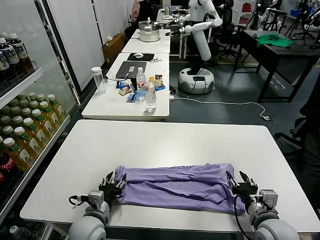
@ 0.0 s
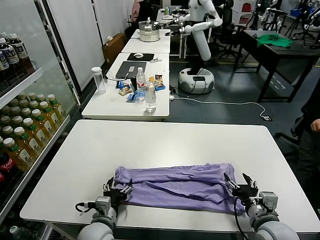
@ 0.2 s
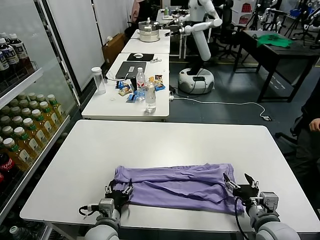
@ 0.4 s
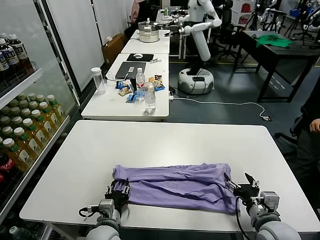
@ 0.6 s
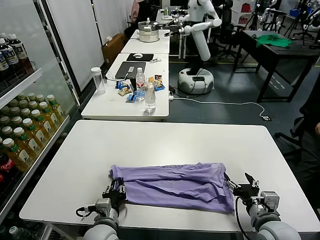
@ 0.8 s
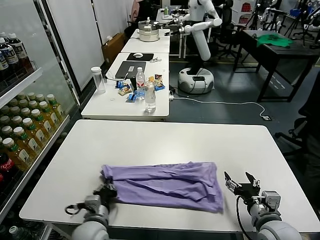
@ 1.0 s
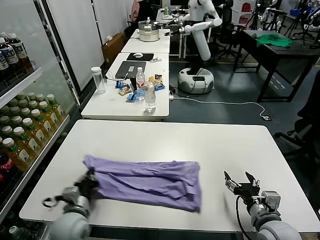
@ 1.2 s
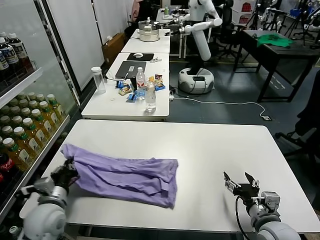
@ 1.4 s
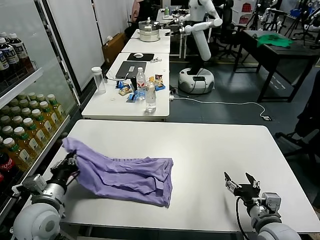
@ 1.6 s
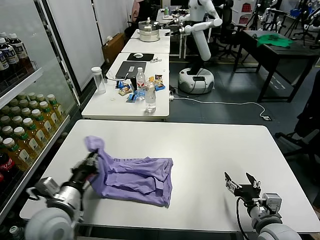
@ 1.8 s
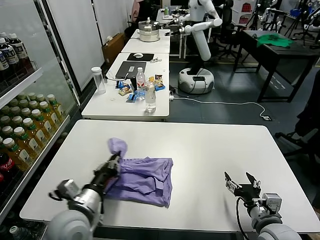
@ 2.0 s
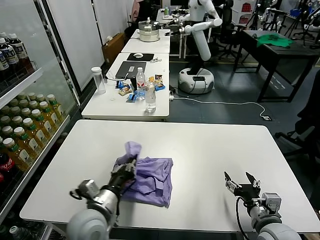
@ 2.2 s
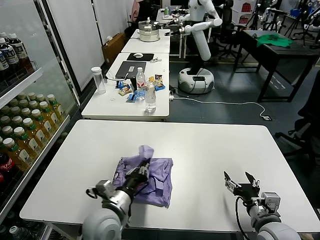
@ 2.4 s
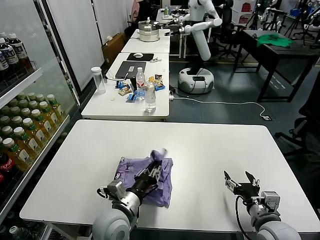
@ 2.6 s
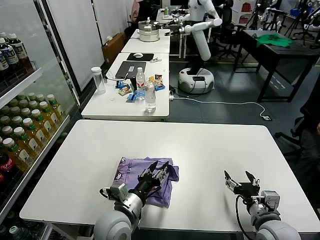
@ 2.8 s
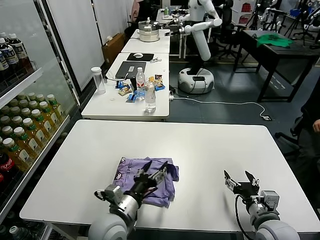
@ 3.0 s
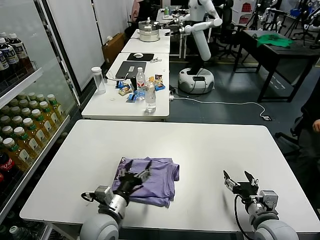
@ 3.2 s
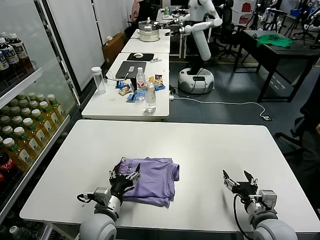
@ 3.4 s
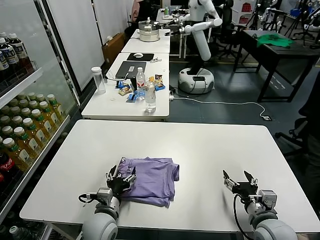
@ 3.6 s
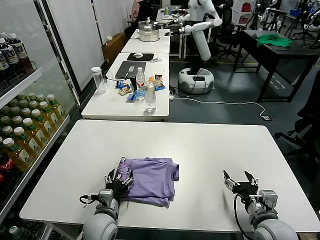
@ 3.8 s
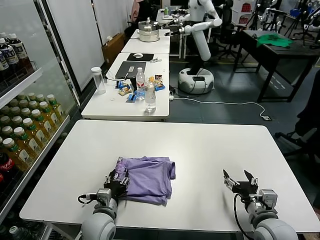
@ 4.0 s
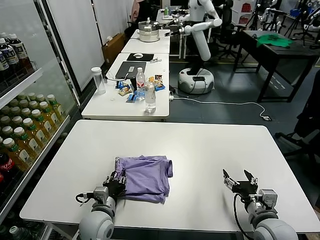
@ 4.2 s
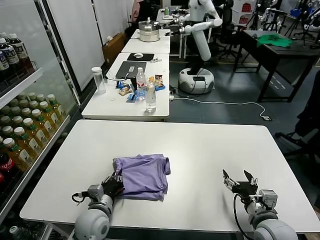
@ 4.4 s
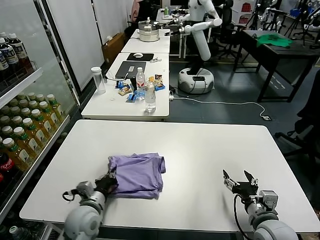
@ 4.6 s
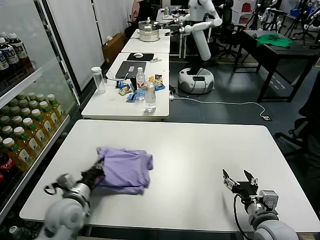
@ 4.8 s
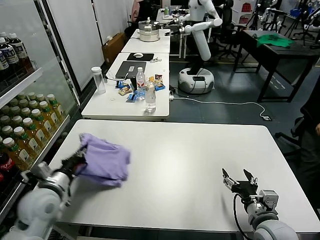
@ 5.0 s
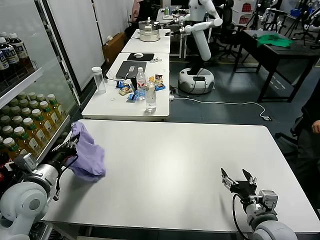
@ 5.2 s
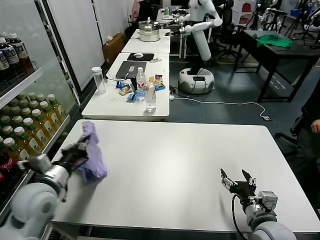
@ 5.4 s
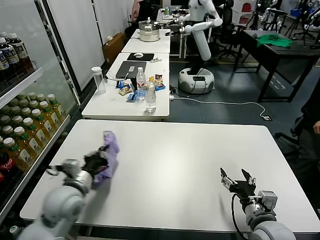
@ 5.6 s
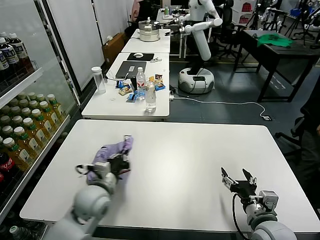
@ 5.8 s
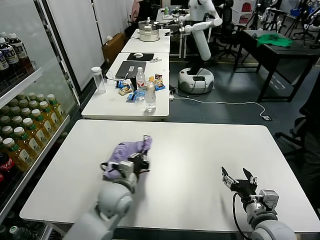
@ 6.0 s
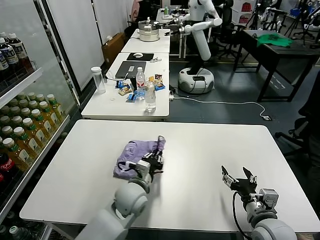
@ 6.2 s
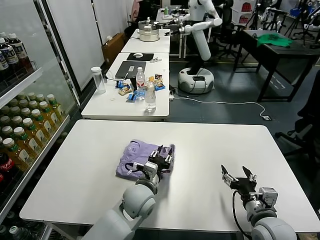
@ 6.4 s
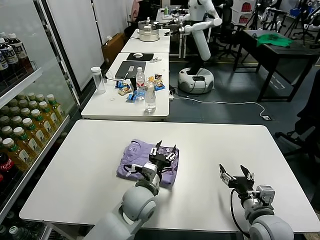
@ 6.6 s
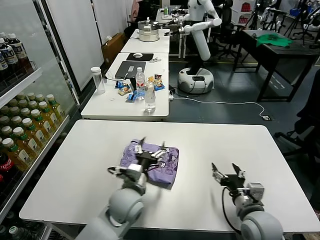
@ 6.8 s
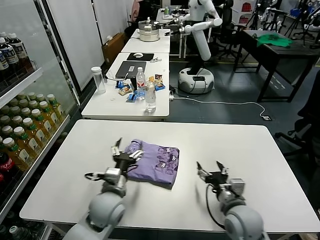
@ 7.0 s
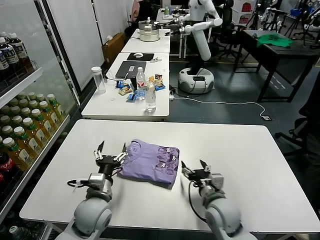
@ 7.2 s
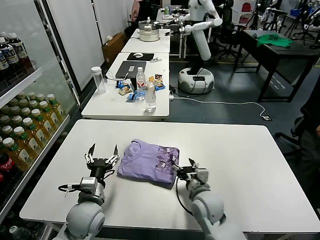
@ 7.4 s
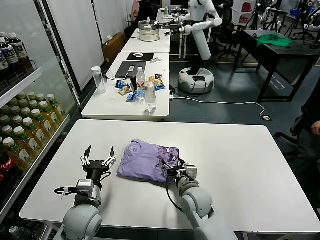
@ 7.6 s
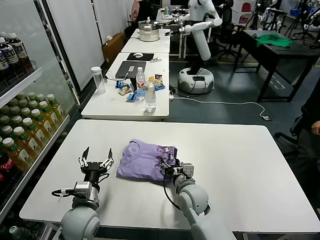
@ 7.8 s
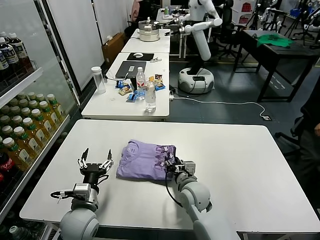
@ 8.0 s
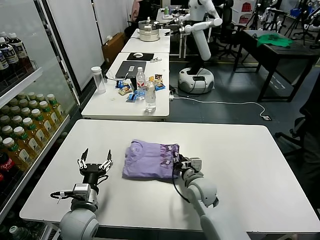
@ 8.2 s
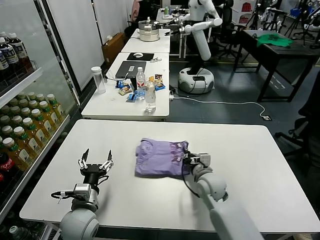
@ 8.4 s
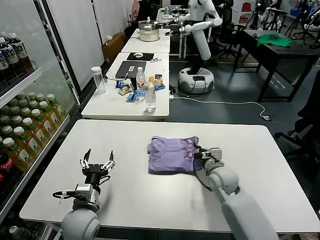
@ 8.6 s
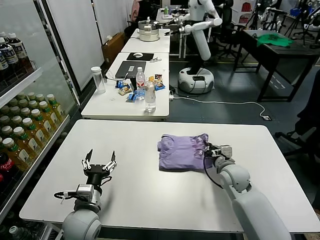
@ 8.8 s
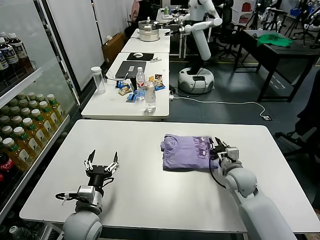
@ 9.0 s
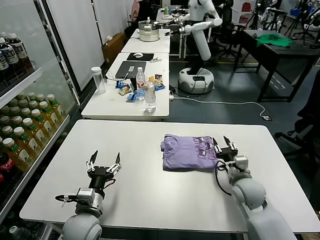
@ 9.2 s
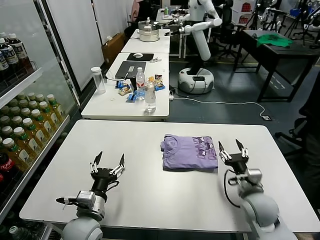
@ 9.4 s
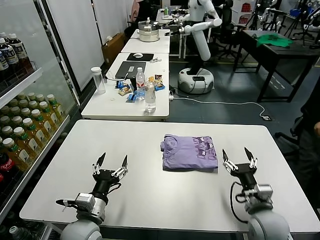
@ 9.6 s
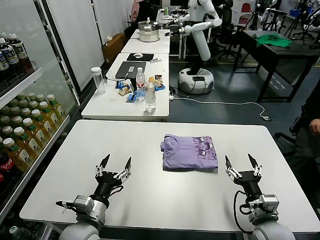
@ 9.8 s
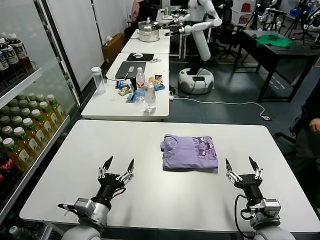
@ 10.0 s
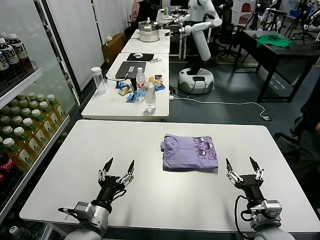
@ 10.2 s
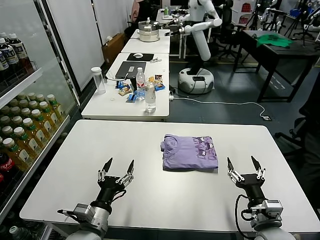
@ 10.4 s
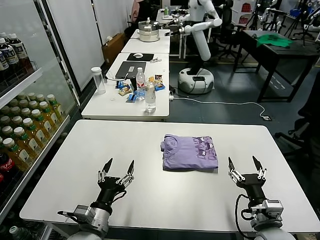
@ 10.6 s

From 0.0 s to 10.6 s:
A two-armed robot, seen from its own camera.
Task of the whole recording: fold and organize the clothes.
Step, from 0.2 s to 0.8 s: use the left gripper to clamp the left edge of the fabric.
Step, from 1.2 s to 3.0 s: use the left gripper to drag the left edge of the fabric to the left and folds it over the right edge.
Step, from 3.4 s to 6.4 s: Flip the folded clothes over with left gripper.
Step, from 6.6 s to 9.0 s: Drag the clothes to the center of the table.
From 0.0 s to 1.6 s: The left gripper goes roughly 15 cm to the left and upward, and closes up.
From 1.6 s to 3.0 s: The left gripper shifts some 20 cm to the right, and opens.
From 3.0 s to 4.6 s: The left gripper heads to the left and downward, covering approximately 10 cm, and closes up.
From 4.6 s to 6.0 s: The left gripper travels to the right and upward by approximately 10 cm.
From 6.0 s to 7.6 s: The right gripper is displaced to the left and forward by about 20 cm; the left gripper goes roughly 10 cm to the left, and opens its fingers.
From 7.6 s to 9.0 s: The right gripper travels to the right and forward by about 15 cm, and closes.
From 9.0 s to 10.6 s: The right gripper is displaced backward by approximately 20 cm, and opens up, while the left gripper travels backward by about 5 cm.

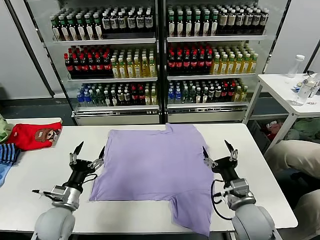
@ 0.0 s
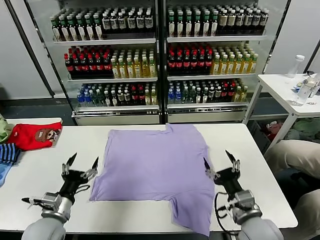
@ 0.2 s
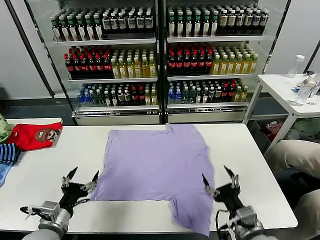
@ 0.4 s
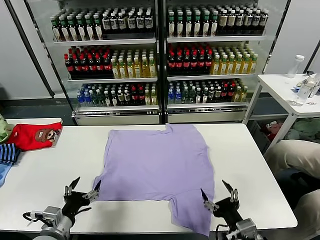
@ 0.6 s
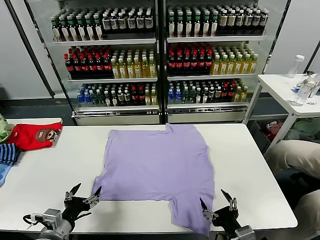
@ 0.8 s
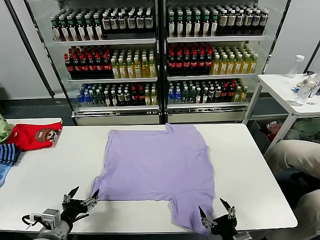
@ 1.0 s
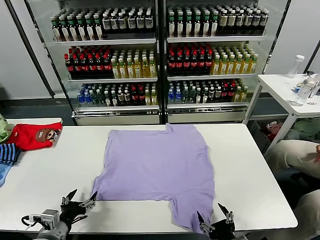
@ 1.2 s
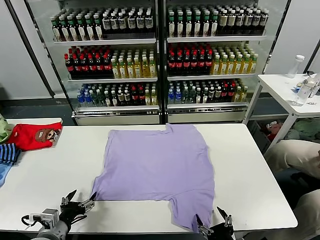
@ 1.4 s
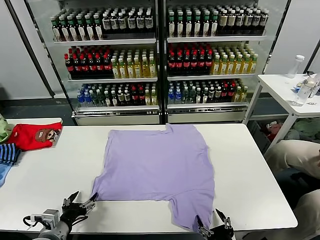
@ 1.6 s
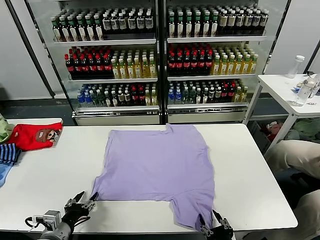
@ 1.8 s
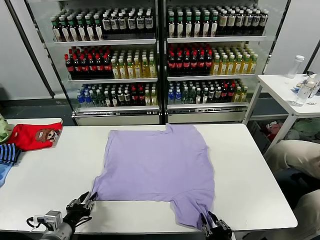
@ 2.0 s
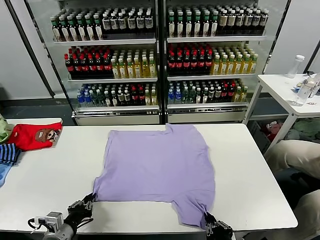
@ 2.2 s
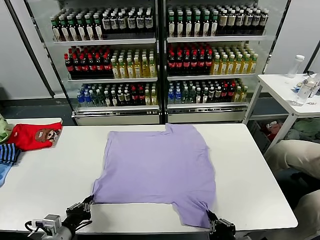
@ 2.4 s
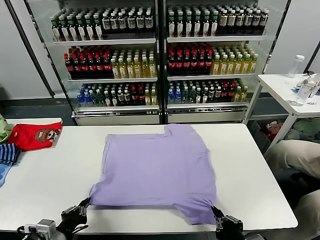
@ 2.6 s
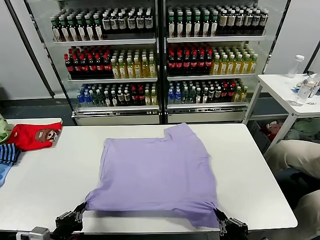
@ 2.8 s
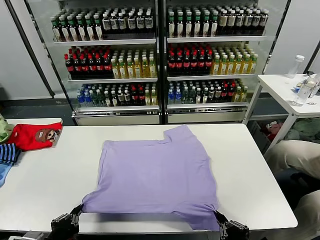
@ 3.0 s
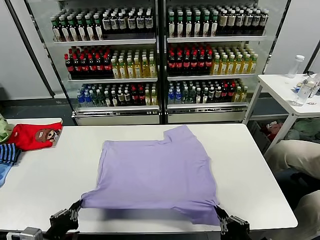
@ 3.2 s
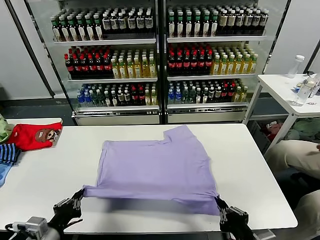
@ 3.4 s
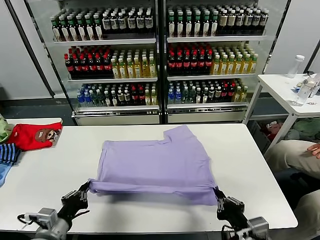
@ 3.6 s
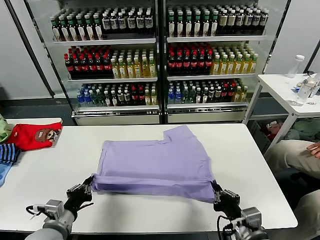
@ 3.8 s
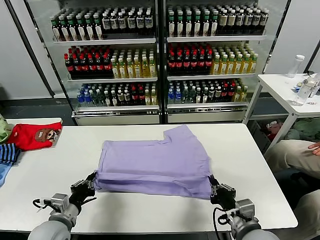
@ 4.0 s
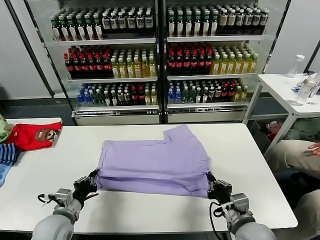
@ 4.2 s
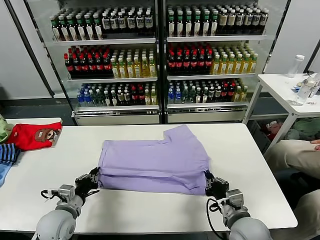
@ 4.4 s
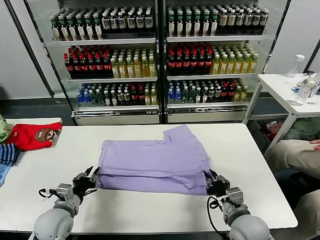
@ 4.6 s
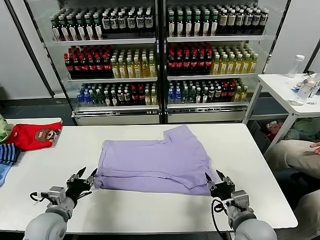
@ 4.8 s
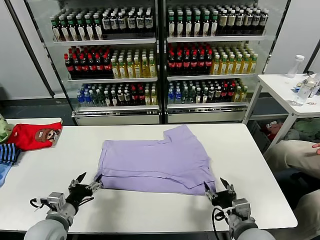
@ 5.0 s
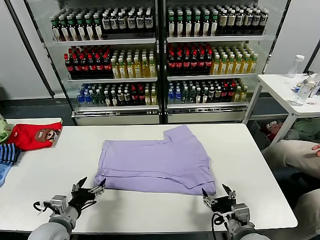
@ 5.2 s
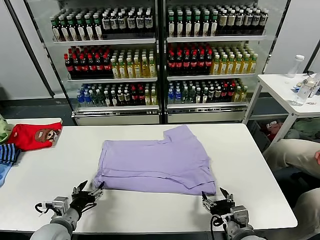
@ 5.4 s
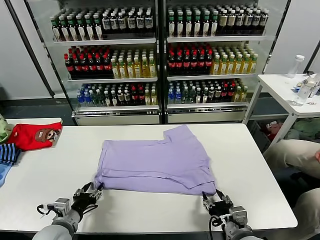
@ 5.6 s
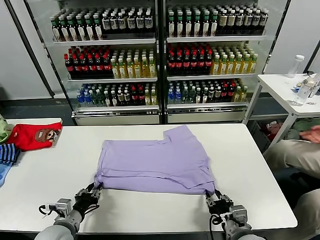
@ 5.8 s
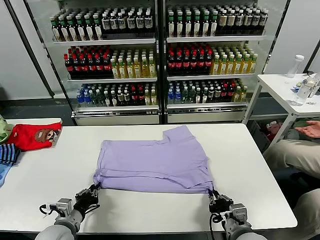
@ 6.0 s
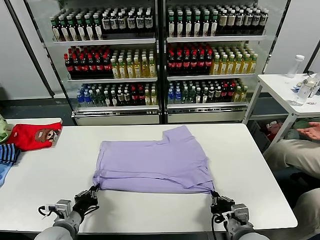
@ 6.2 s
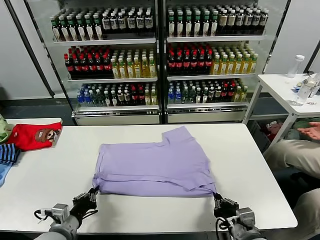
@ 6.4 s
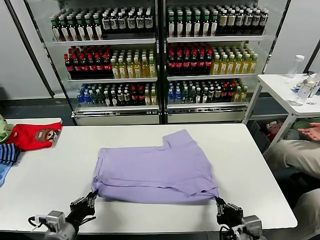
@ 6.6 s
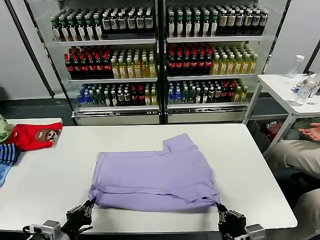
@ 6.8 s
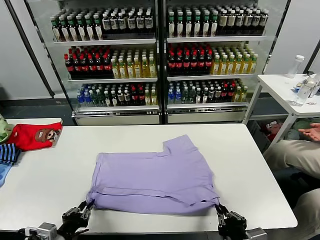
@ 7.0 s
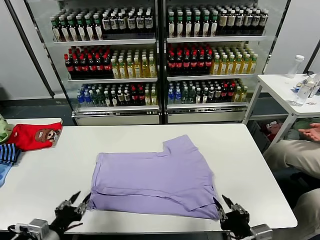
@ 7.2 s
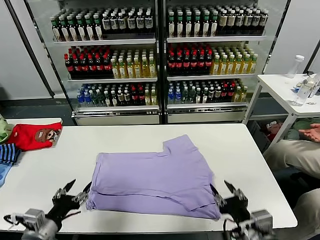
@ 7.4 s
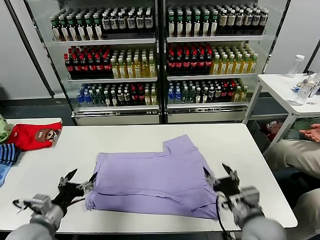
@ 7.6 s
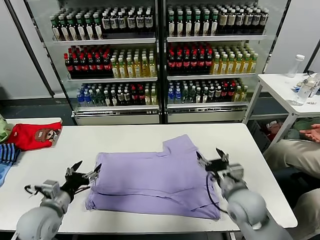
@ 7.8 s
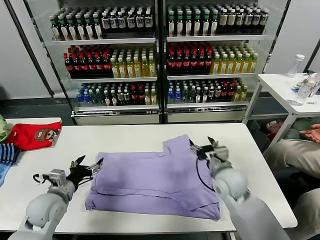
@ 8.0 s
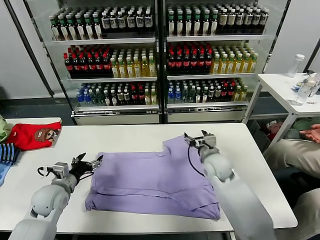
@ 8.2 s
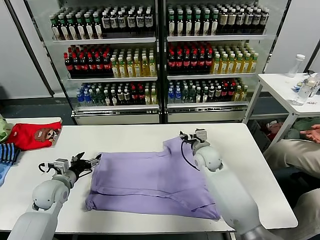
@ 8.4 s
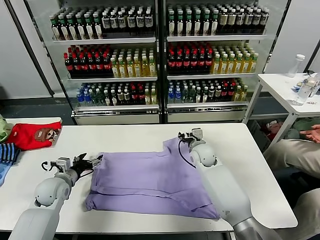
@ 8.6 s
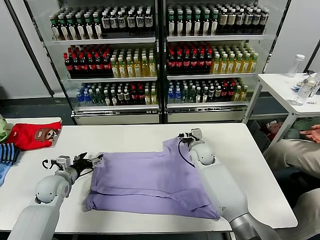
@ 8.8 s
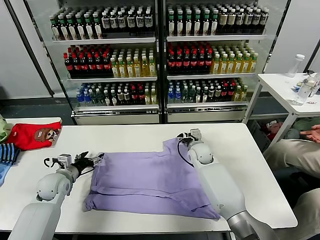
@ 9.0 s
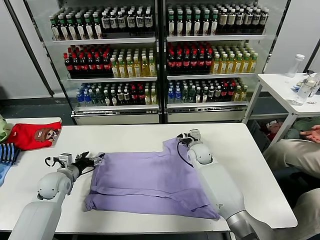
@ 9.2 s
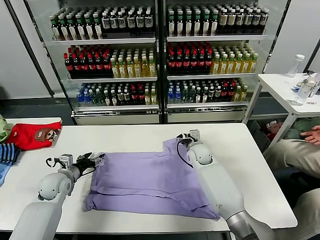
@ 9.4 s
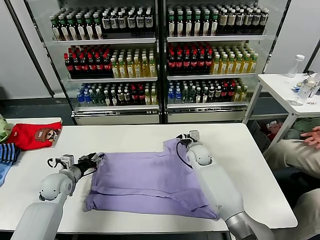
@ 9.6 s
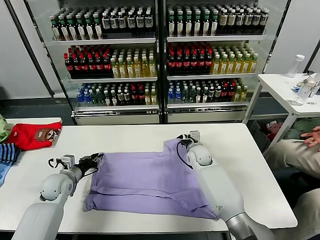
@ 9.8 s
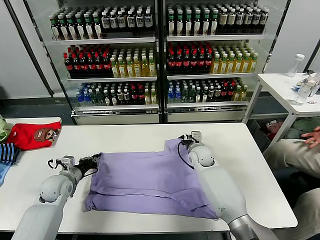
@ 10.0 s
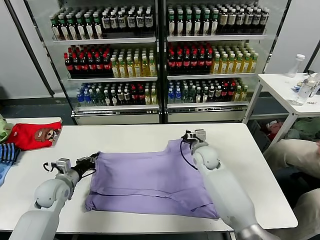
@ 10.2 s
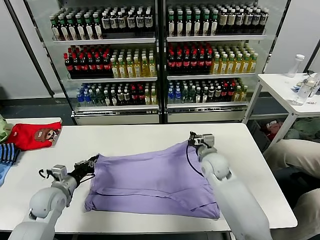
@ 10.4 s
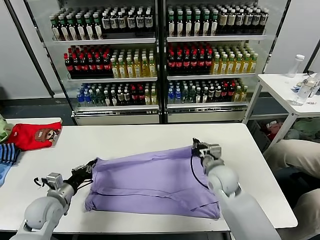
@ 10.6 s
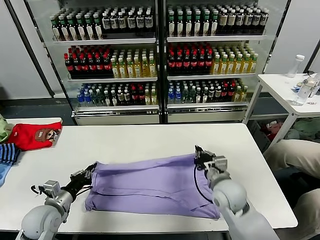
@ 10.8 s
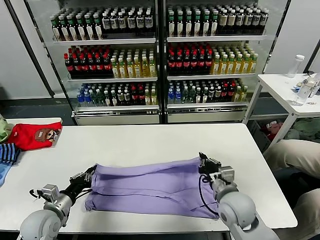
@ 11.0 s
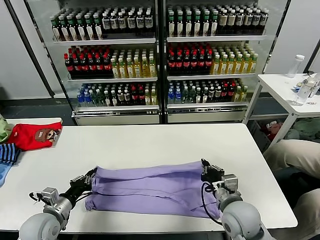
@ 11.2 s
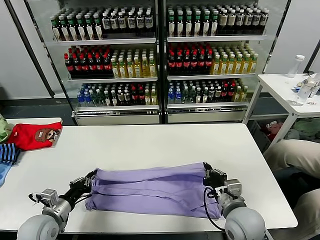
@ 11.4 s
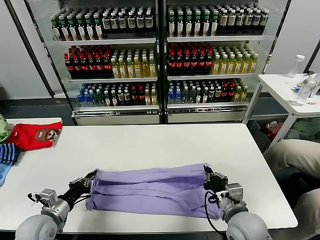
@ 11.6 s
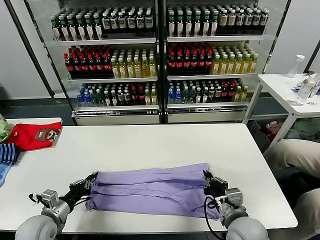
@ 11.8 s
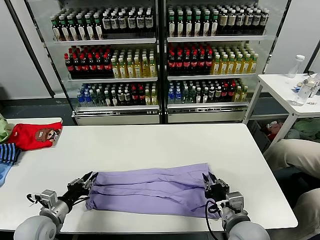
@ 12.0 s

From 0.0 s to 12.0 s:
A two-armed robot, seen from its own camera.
Task of the whole recording: fold and organize the clothes.
Step, from 0.0 s to 2.2 s: use both grippers simultaneously to clamp the lower edge of the clothing fabric.
Step, from 2.4 s to 4.8 s: use both grippers to drag the lower edge of the fabric forward and fold it over the upper edge.
Step, from 5.0 s to 7.2 s: Drag the clothes downward with both gripper.
Step, from 7.4 s to 10.0 s: use both grippers simultaneously to clamp the upper edge of the clothing fabric.
From 1.6 s to 3.0 s: The right gripper moves upward, approximately 10 cm, and closes its fingers. The left gripper shifts roughly 10 cm backward and upward, and closes up.
From 3.0 s to 4.4 s: The left gripper is displaced forward by roughly 15 cm, while the right gripper shifts roughly 15 cm forward and downward.
From 4.4 s to 6.0 s: The left gripper opens and closes again, while the right gripper opens, then closes again.
From 6.0 s to 7.6 s: The left gripper heads upward, covering roughly 5 cm, travels backward and back again, approximately 10 cm each way, and opens its fingers. The right gripper is displaced upward and forward by roughly 10 cm, and opens up.
From 7.6 s to 9.0 s: The left gripper heads forward, covering roughly 20 cm; the right gripper goes roughly 30 cm forward.
From 9.0 s to 10.4 s: The left gripper moves backward, about 5 cm, and closes its fingers. Meanwhile the right gripper is displaced backward by roughly 10 cm, and closes up.
From 10.4 s to 12.0 s: The right gripper moves backward, roughly 20 cm. The left gripper goes approximately 10 cm backward.
